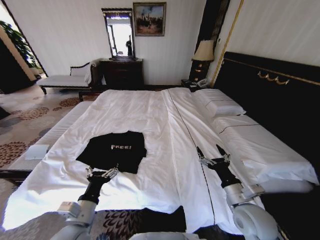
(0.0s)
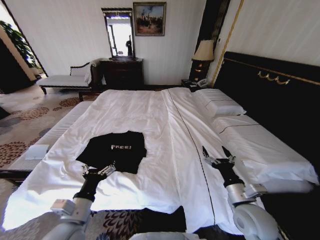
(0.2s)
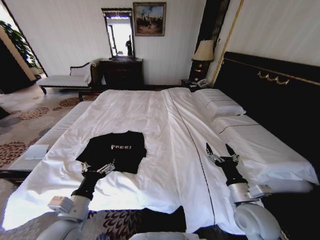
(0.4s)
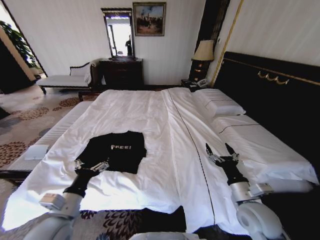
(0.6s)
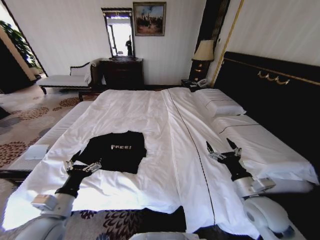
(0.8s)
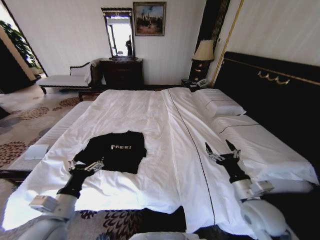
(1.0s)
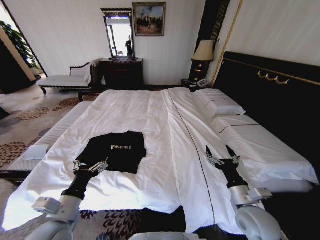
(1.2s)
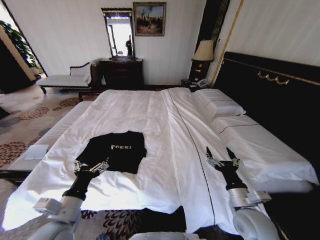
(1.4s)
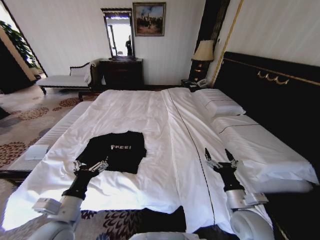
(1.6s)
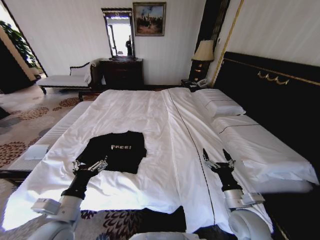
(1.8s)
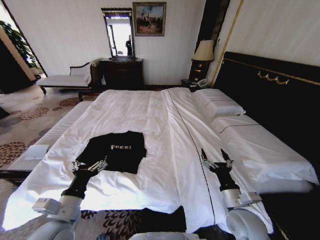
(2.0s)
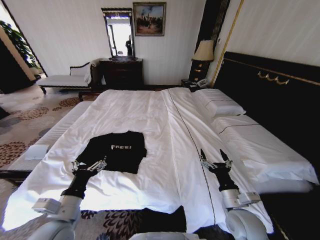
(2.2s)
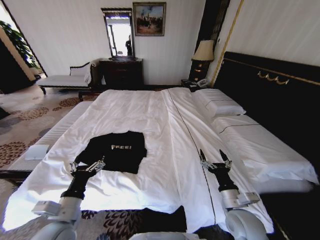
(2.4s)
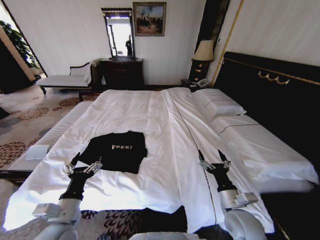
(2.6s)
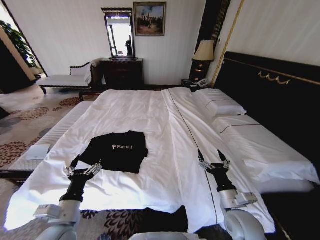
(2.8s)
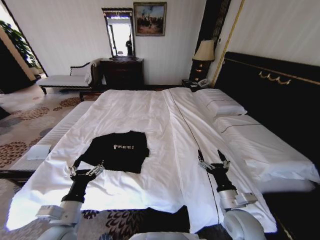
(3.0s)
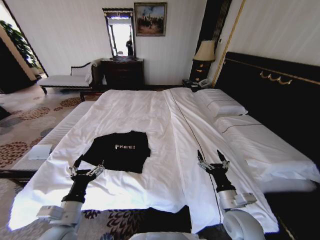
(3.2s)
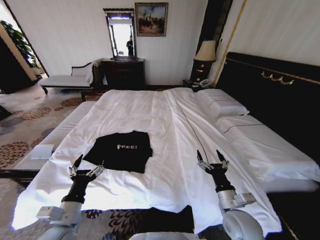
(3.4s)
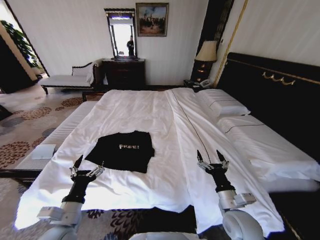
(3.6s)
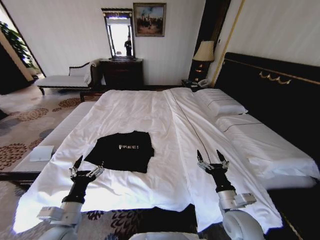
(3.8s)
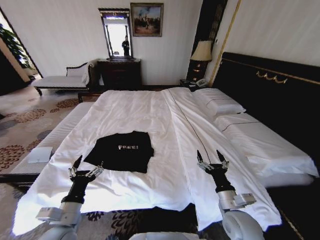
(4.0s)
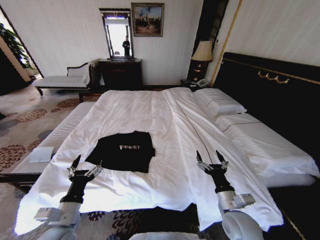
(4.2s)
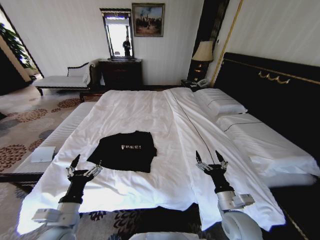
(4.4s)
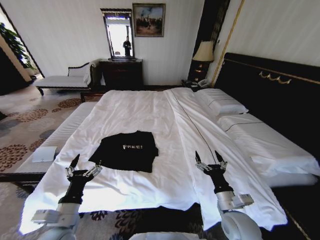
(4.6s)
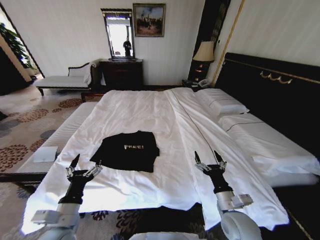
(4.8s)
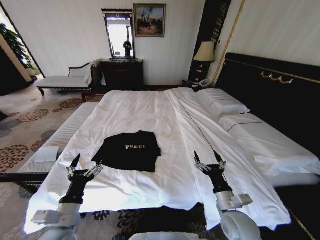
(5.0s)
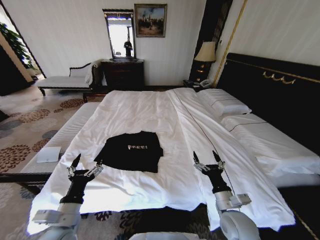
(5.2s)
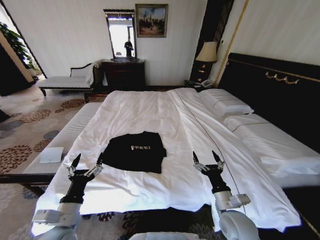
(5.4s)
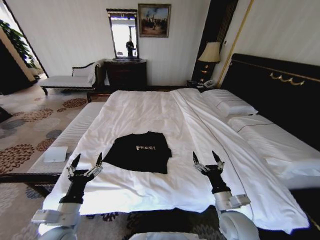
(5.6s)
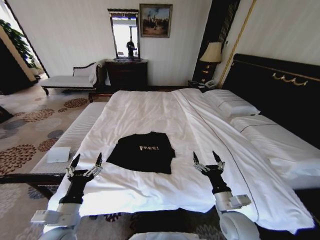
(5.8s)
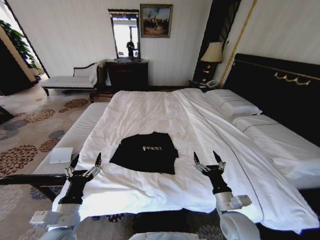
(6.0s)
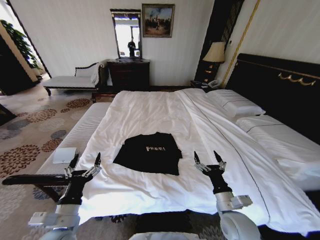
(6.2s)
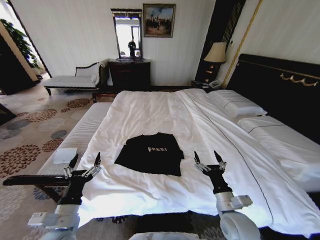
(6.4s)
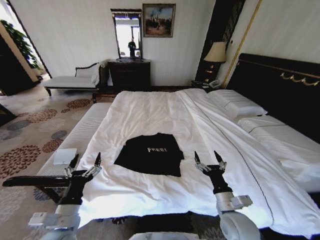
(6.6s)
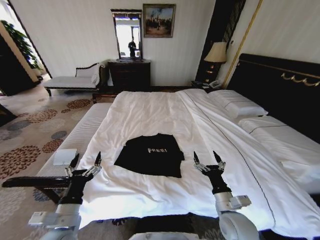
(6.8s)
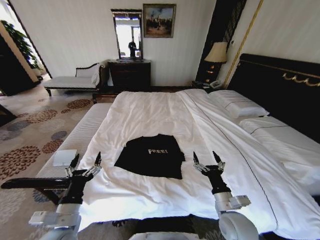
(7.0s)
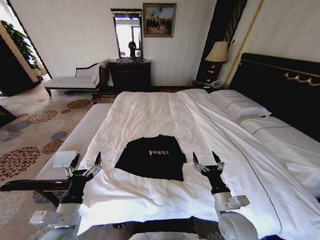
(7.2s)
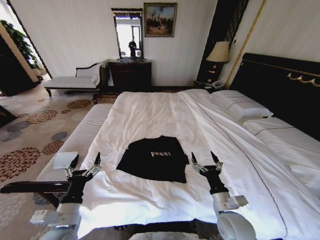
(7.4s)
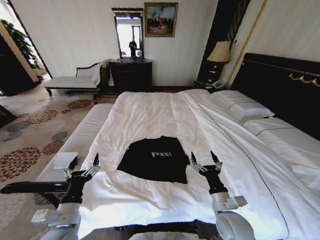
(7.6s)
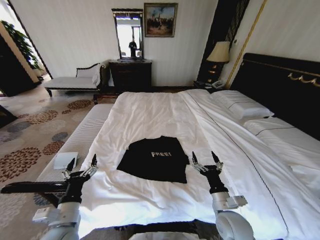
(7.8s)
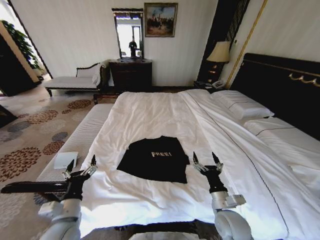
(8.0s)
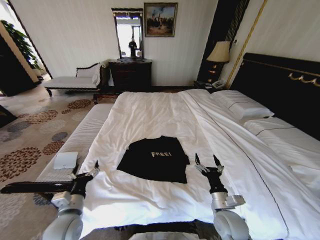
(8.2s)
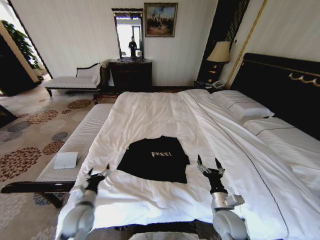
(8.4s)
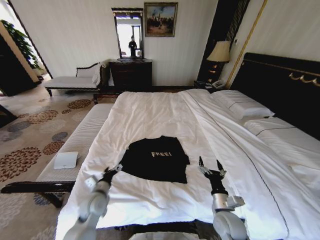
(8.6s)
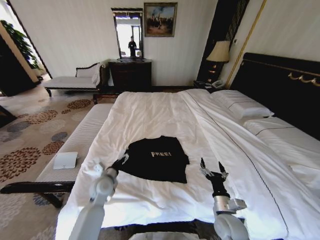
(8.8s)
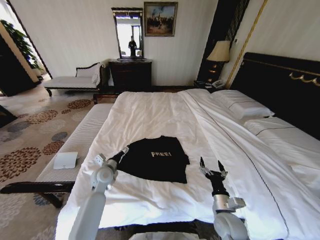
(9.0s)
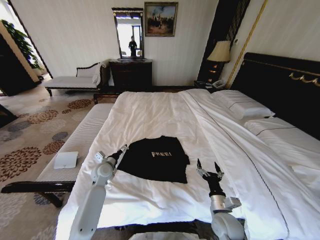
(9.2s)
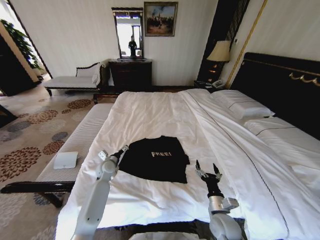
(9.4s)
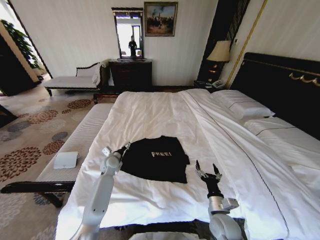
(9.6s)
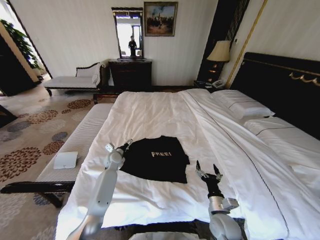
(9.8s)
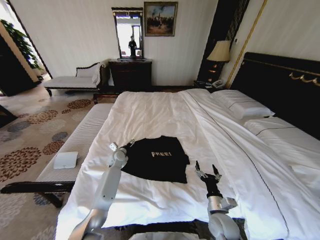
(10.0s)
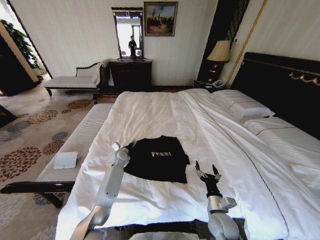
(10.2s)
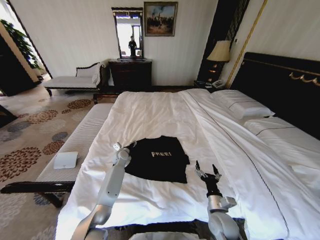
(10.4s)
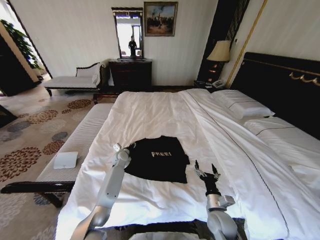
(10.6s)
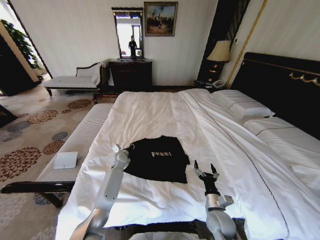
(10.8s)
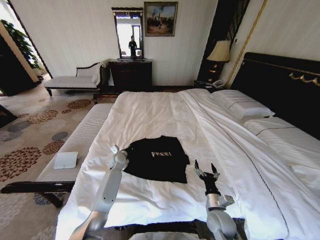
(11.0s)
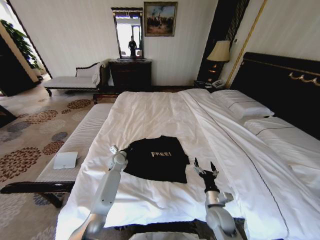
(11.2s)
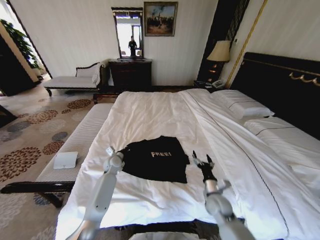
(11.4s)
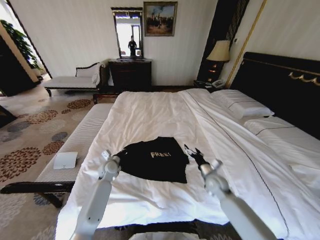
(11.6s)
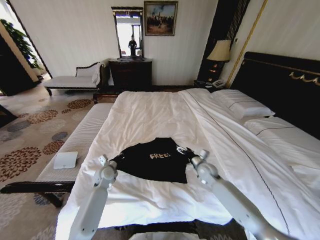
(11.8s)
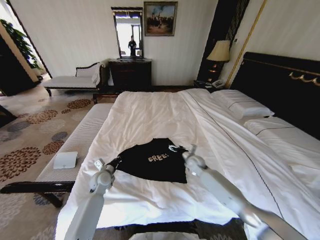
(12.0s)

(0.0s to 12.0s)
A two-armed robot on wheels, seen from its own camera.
Task of the whole recording: Fold the clothes on the bed.
1.6s - 3.0s: The grippers make only small movements.
7.6s - 9.0s: The left gripper heads forward, covering some 25 cm. Meanwhile the right gripper moves downward, roughly 5 cm.
9.0s - 10.4s: The left gripper travels forward and downward by about 15 cm.
10.4s - 12.0s: The left gripper moves backward and to the left, roughly 15 cm, and closes its fingers. The right gripper goes some 25 cm forward.

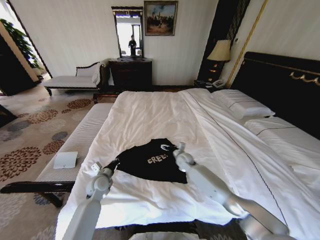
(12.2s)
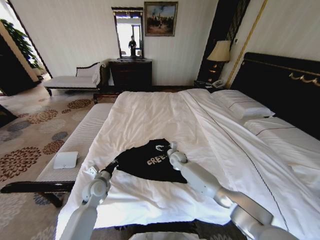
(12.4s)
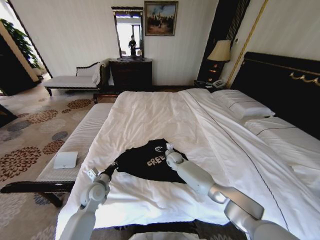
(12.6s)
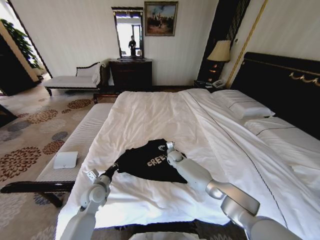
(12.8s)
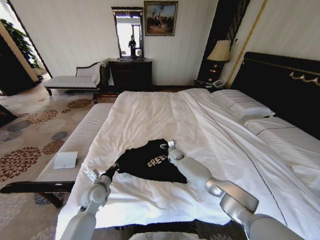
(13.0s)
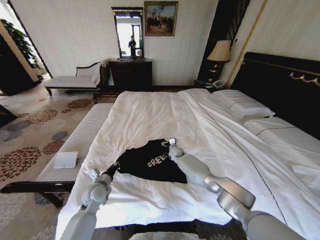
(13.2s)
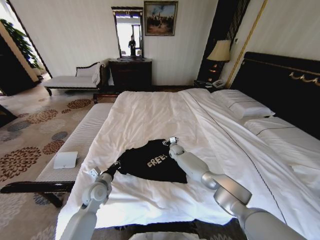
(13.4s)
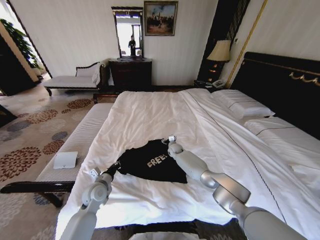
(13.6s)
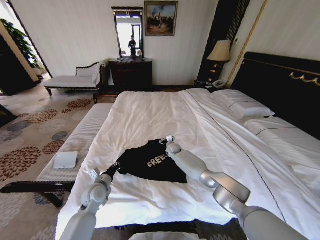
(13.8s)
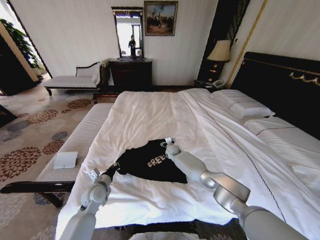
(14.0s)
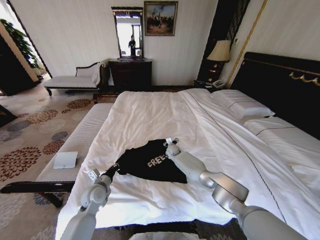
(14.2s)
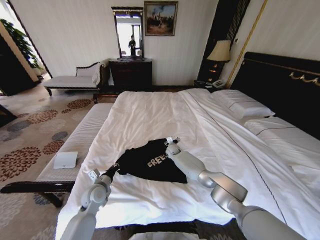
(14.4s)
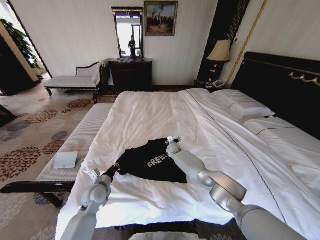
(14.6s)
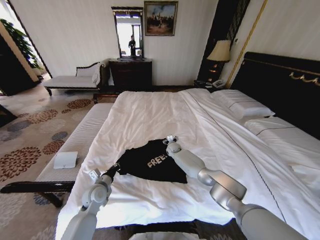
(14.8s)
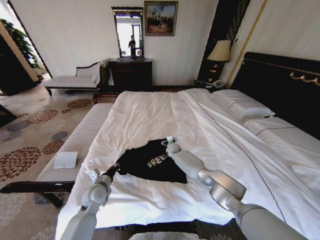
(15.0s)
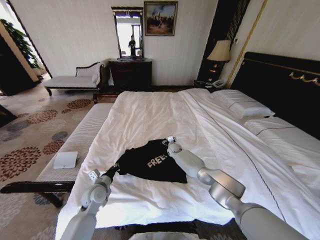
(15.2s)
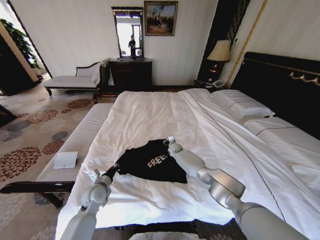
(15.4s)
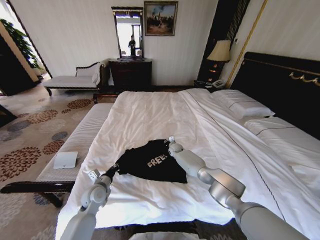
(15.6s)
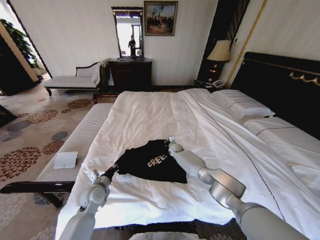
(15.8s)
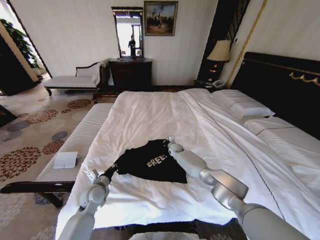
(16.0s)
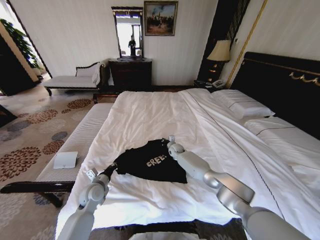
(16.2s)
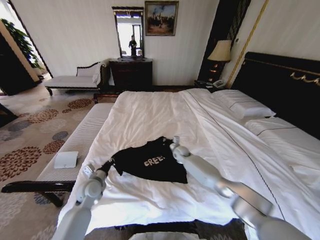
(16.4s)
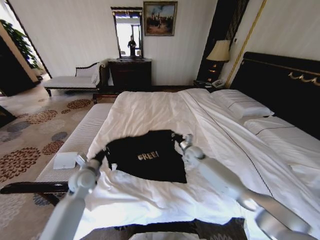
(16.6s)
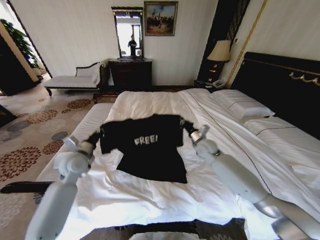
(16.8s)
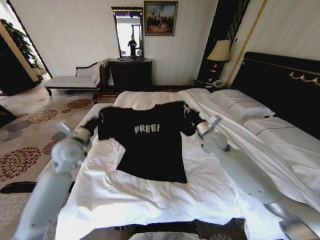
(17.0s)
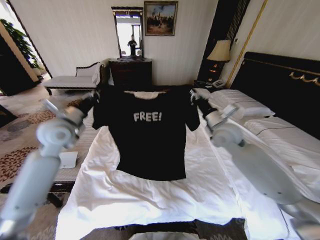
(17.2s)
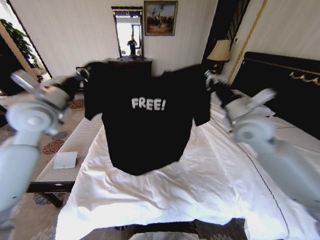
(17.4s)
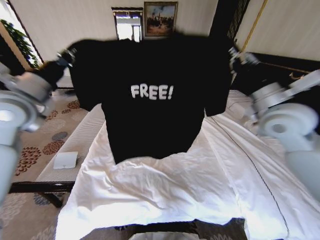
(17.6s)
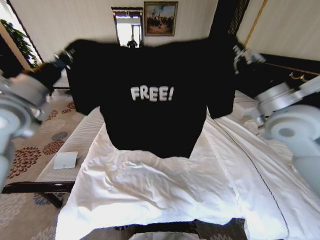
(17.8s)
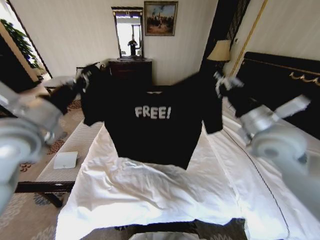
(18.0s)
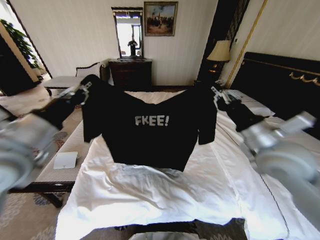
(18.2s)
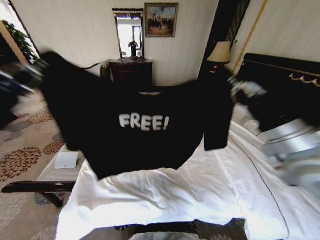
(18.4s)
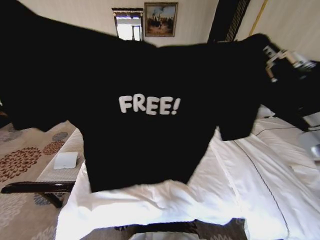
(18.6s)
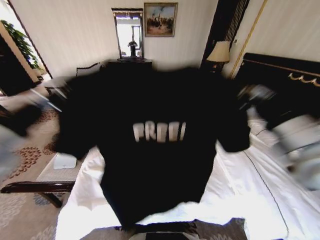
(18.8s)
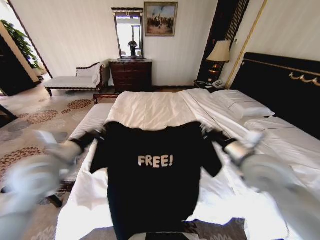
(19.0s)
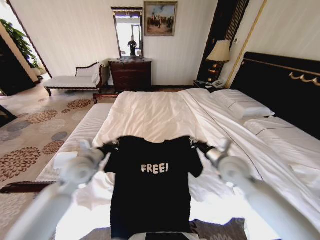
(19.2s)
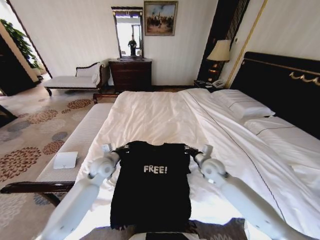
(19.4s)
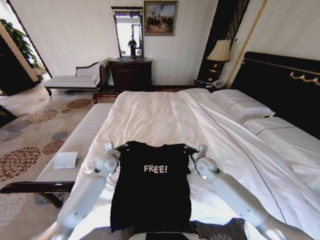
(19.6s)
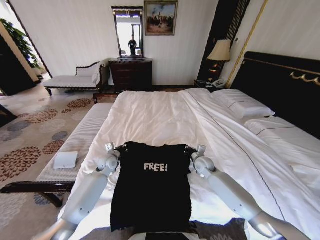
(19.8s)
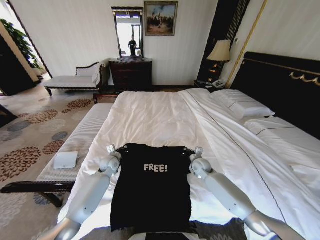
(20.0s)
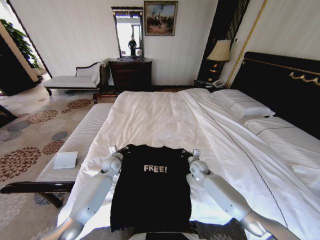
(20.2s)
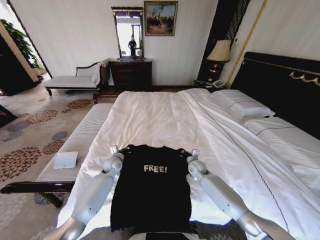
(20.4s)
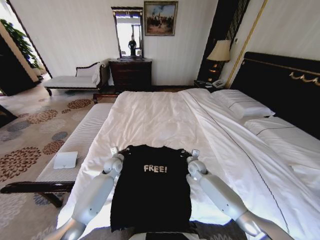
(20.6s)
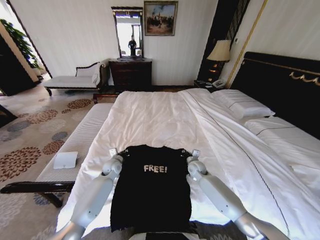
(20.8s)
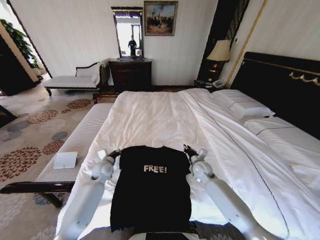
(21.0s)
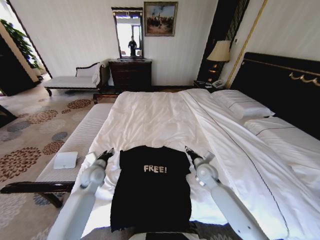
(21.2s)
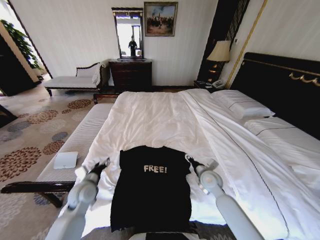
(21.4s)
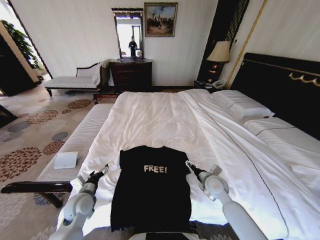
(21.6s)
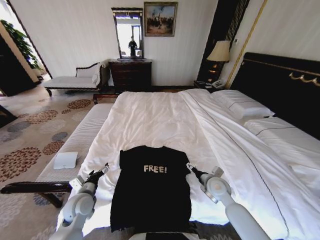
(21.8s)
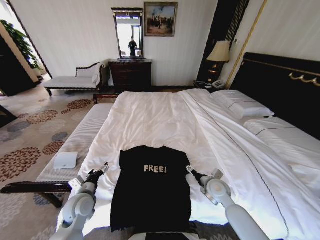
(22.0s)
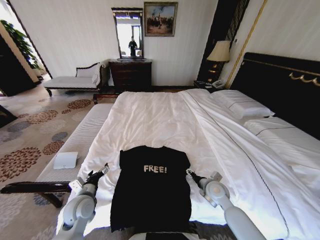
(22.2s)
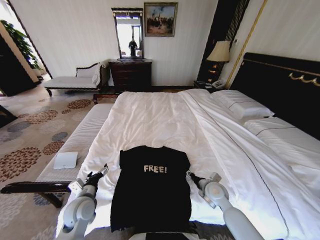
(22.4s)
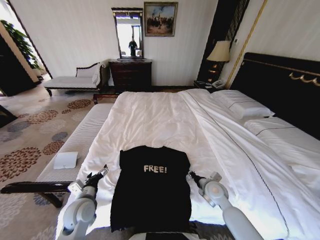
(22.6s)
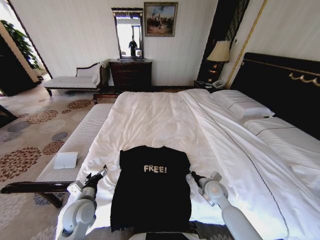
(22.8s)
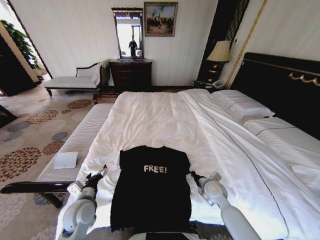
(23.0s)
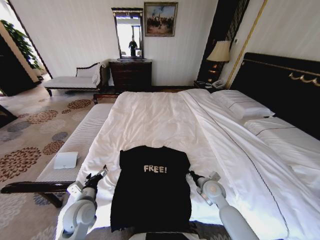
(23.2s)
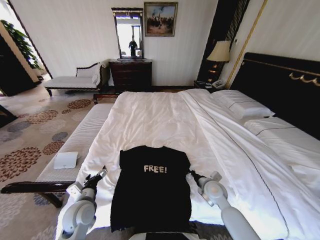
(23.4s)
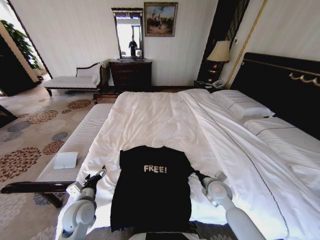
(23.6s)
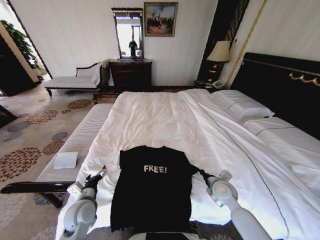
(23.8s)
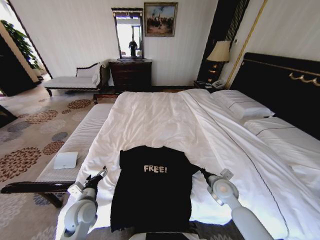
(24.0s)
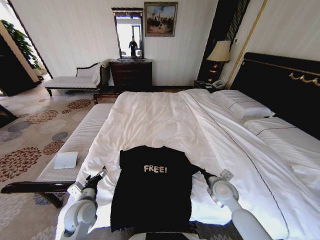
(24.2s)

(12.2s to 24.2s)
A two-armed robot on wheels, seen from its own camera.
Task of the whole recording: Fold the clothes on the bed.
12.2s - 13.8s: The right gripper moves forward, approximately 10 cm.
13.8s - 15.2s: The grippers make only small movements.
15.2s - 16.6s: The right gripper moves backward, upward and to the right, approximately 15 cm, and closes. The left gripper is displaced upward by some 10 cm.
16.6s - 18.2s: The left gripper travels upward by about 25 cm; the right gripper heads upward and backward, covering roughly 35 cm.
18.2s - 19.8s: Both grippers travel together downward and forward, approximately 35 cm.
19.8s - 21.2s: The two grippers go some 10 cm backward. The left gripper opens up. Meanwhile the right gripper opens its fingers.
21.2s - 22.6s: The left gripper moves backward, about 15 cm, and opens its fingers. Meanwhile the right gripper moves backward, about 5 cm, and opens, then closes once more.
22.6s - 24.2s: The right gripper closes.
